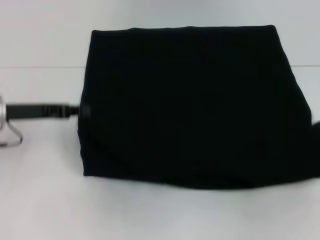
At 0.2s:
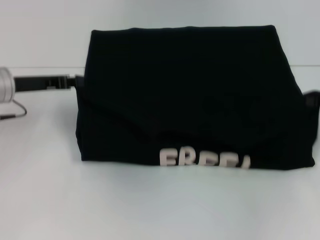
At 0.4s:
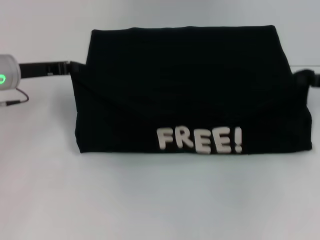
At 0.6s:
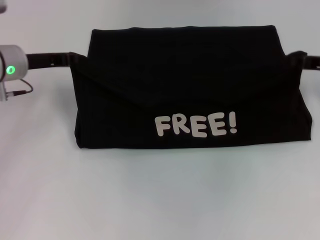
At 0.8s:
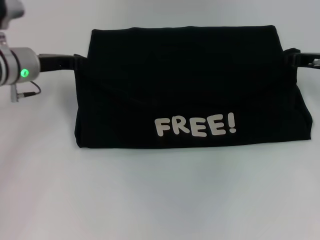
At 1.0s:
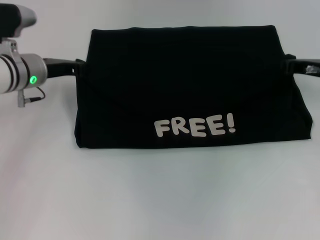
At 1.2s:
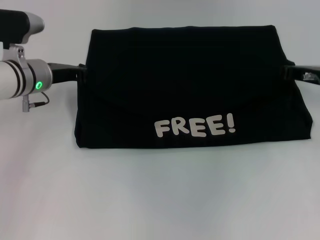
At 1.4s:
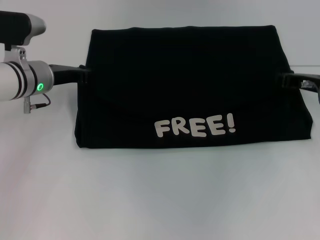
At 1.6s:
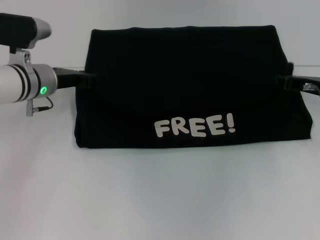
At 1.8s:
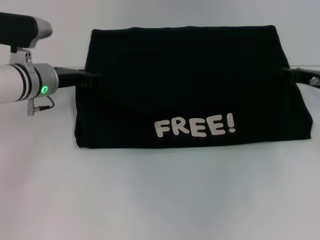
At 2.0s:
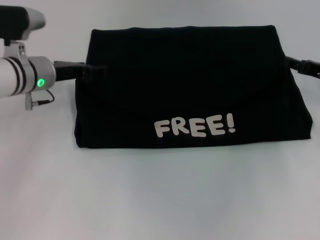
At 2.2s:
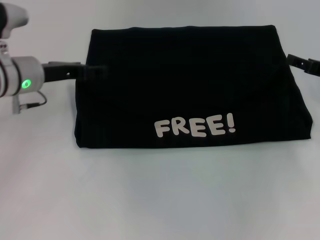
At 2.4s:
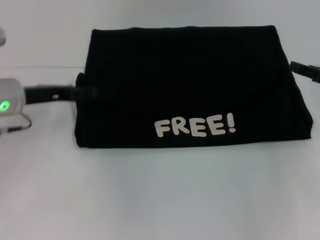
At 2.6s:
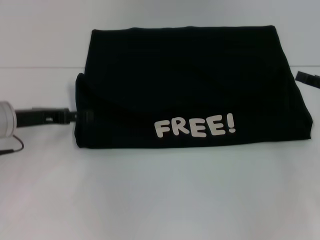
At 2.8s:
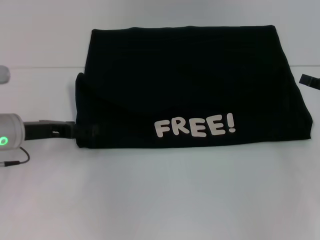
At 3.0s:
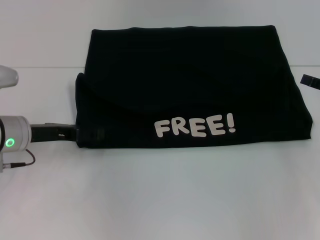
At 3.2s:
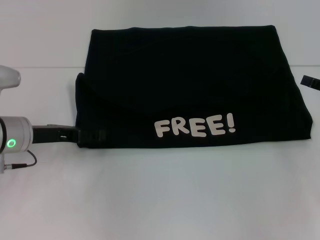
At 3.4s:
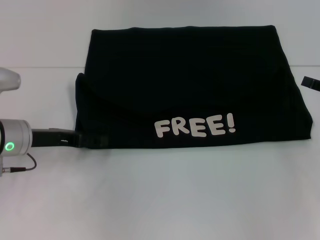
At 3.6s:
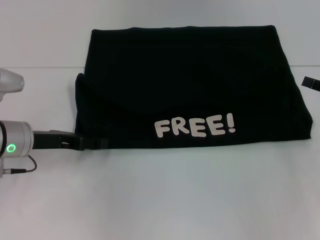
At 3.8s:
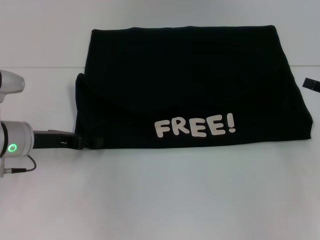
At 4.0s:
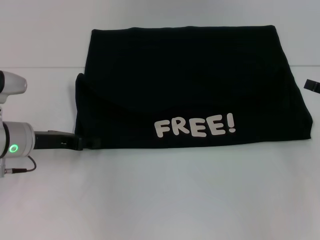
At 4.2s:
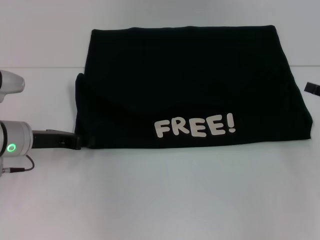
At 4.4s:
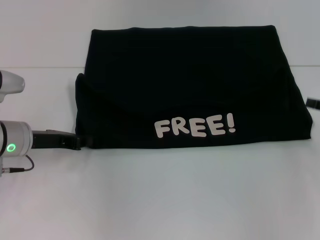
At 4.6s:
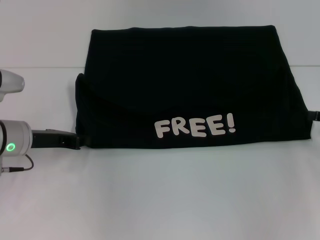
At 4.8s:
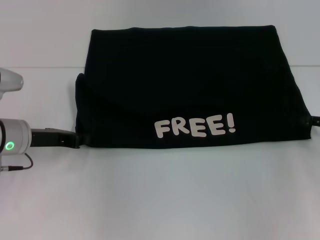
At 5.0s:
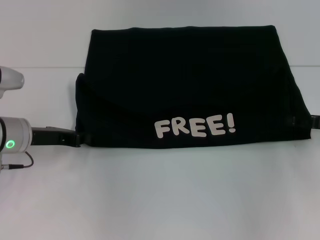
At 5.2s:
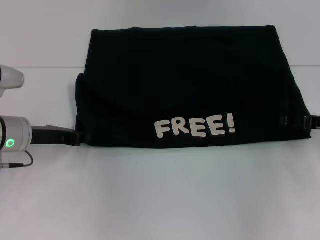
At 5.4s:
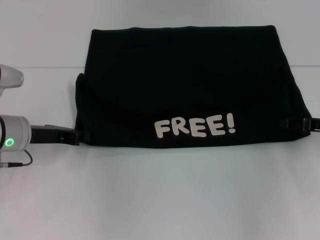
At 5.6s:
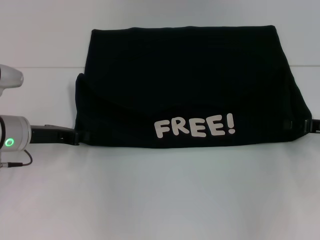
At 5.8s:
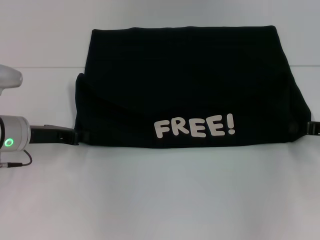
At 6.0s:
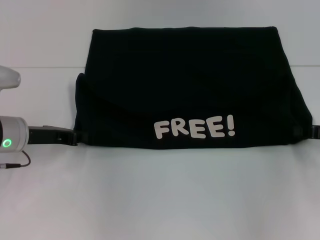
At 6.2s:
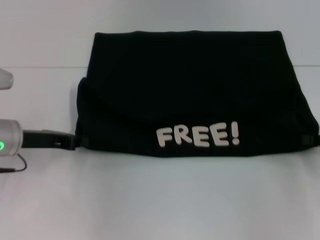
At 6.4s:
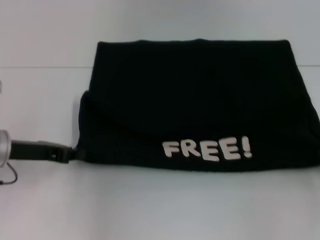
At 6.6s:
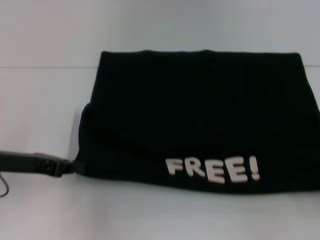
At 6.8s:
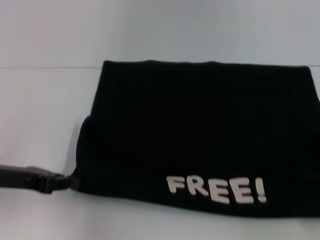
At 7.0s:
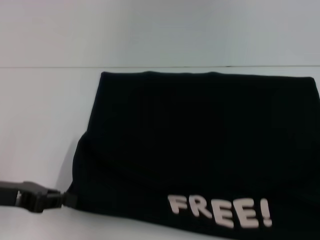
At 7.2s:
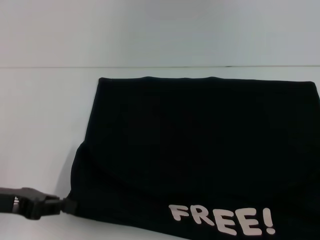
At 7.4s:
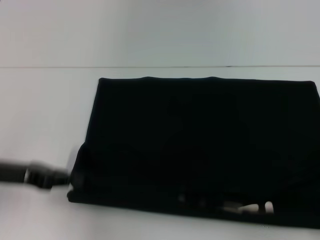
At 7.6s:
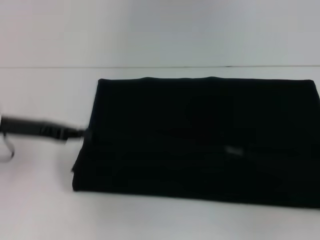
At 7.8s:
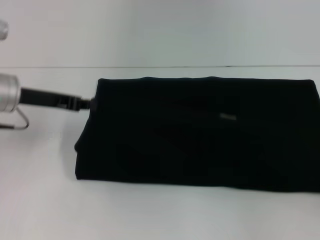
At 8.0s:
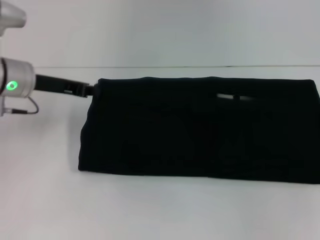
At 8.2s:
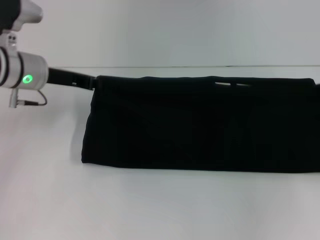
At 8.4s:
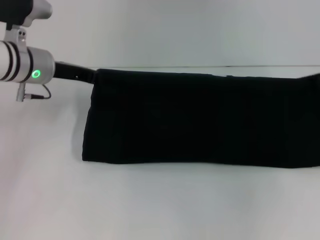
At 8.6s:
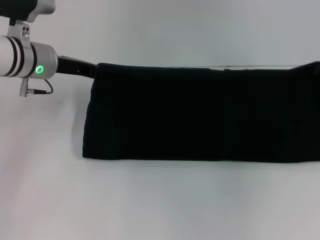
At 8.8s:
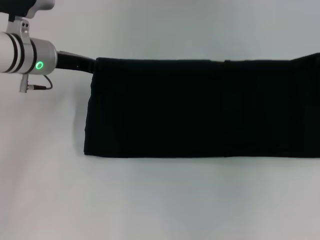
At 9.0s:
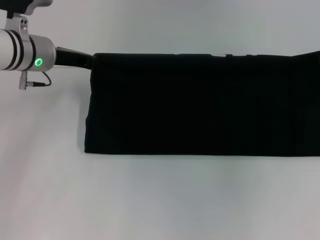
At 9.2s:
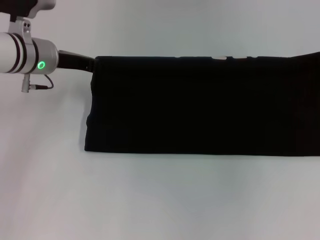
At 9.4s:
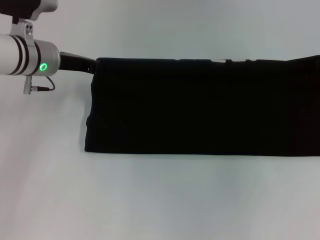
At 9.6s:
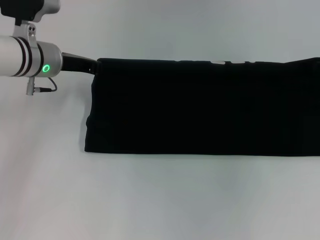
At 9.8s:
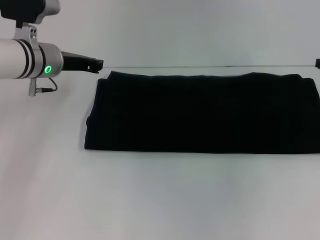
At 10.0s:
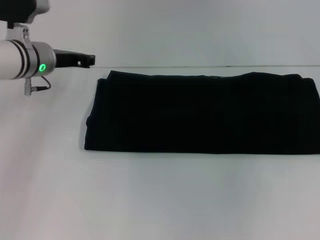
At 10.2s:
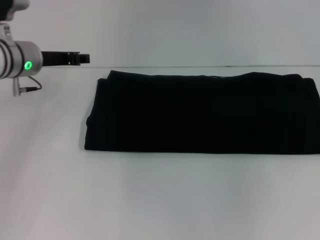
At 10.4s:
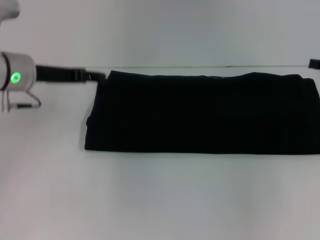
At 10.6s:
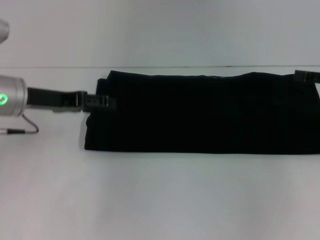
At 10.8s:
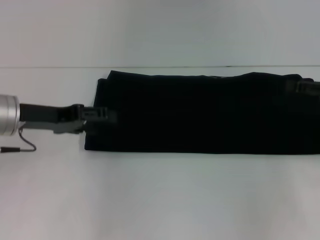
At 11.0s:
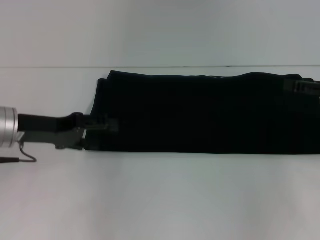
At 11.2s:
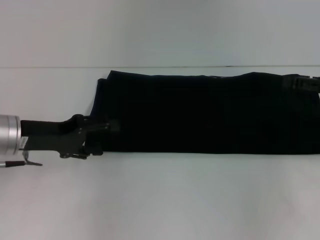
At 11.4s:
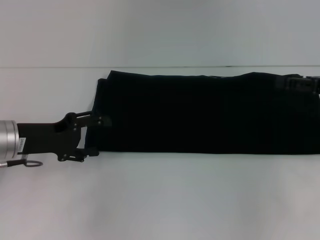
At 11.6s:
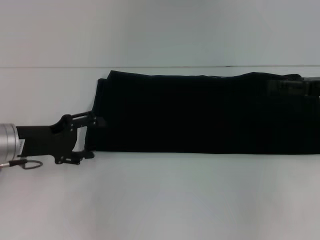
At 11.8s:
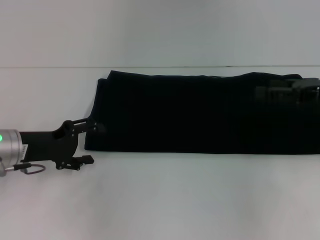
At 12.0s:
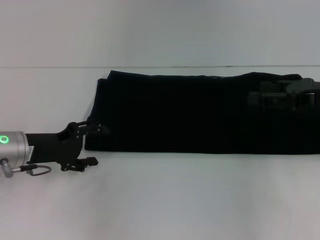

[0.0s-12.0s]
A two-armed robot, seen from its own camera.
Step, 1.8s to 7.0s: Pull the clothes with your left hand.
Step, 1.8s to 7.0s: Pull the clothes with your right hand.
Step, 7.2s to 10.4s: Fold the clothes with your right hand.
0.0s to 1.6s: The right gripper goes some 15 cm to the left and forward, while the left gripper moves forward and to the right, roughly 10 cm.
1.6s to 3.0s: The right gripper goes about 10 cm to the right and backward, and opens up. Meanwhile the left gripper heads backward, covering approximately 10 cm, and opens.
3.0s to 4.4s: The left gripper closes its fingers.
4.4s to 6.0s: The right gripper closes.
6.0s to 7.6s: The right gripper heads backward and to the right, covering about 15 cm, while the left gripper travels upward by approximately 5 cm, and reaches roughly 10 cm backward, then returns.
7.6s to 9.0s: The left gripper shifts some 15 cm forward and to the right; the right gripper moves forward, roughly 20 cm.
9.0s to 10.4s: The right gripper opens its fingers. The left gripper opens.
10.4s to 12.0s: The left gripper moves downward and backward, approximately 10 cm. Meanwhile the right gripper travels to the left by roughly 5 cm.

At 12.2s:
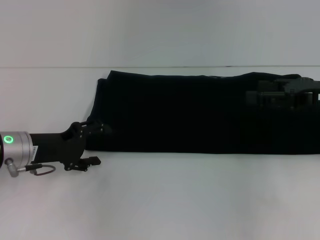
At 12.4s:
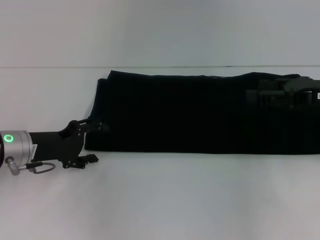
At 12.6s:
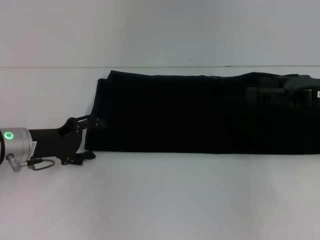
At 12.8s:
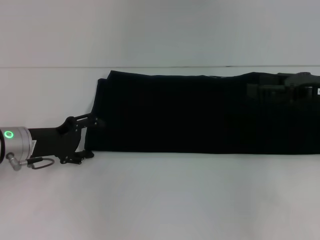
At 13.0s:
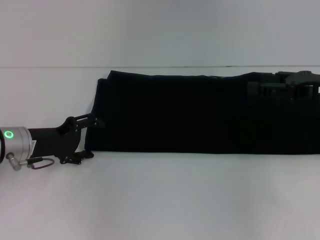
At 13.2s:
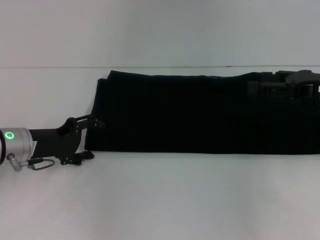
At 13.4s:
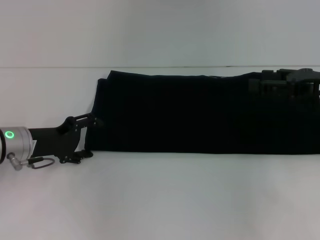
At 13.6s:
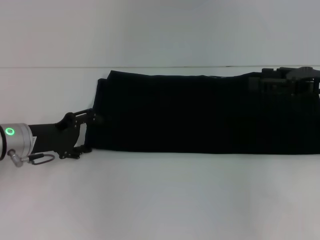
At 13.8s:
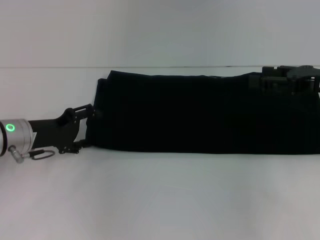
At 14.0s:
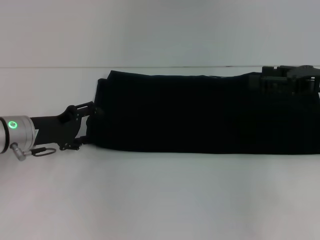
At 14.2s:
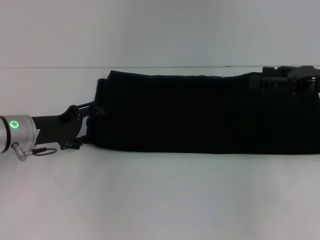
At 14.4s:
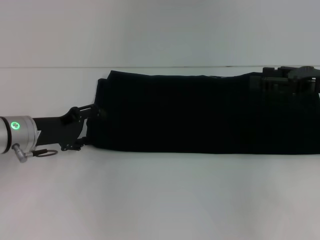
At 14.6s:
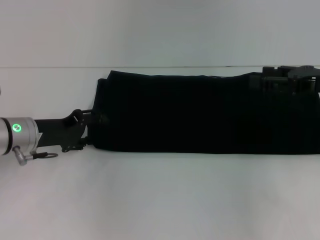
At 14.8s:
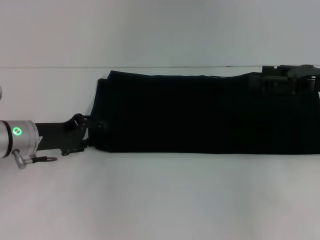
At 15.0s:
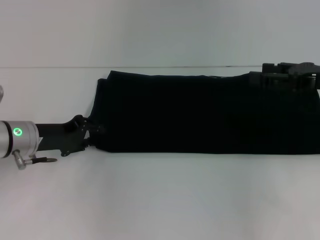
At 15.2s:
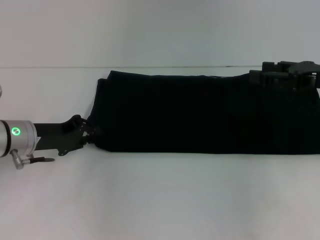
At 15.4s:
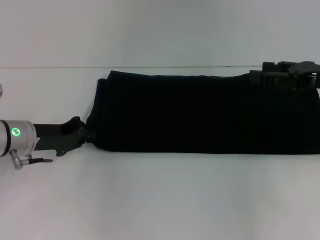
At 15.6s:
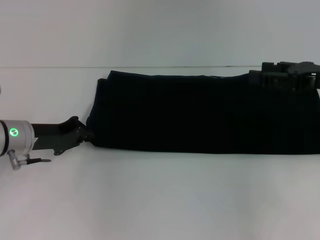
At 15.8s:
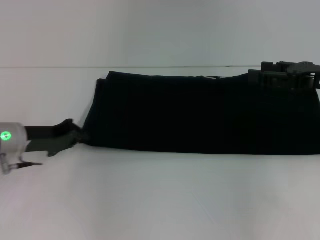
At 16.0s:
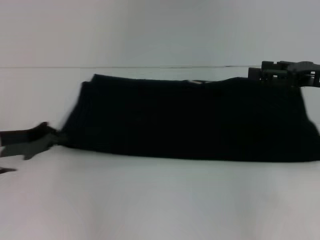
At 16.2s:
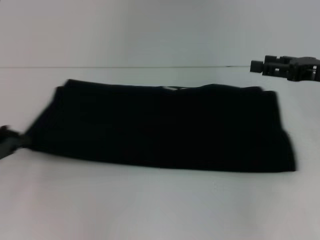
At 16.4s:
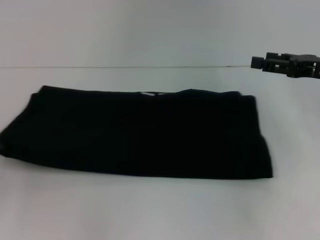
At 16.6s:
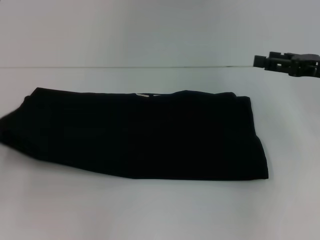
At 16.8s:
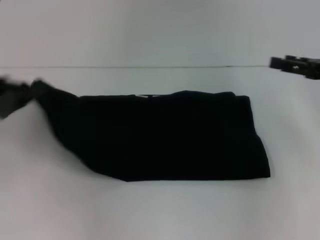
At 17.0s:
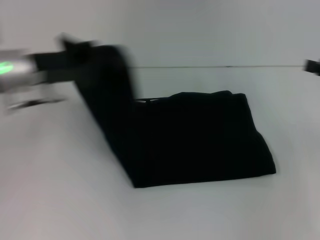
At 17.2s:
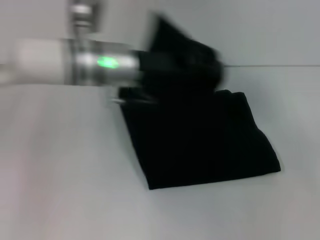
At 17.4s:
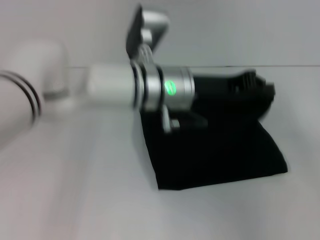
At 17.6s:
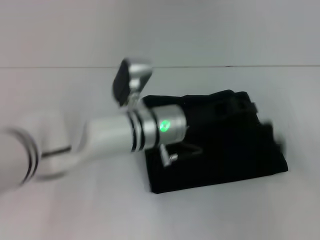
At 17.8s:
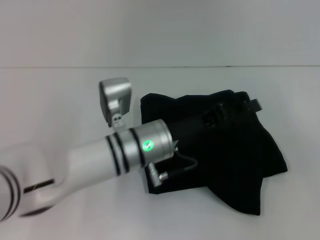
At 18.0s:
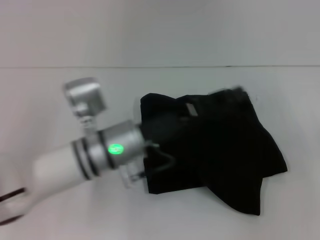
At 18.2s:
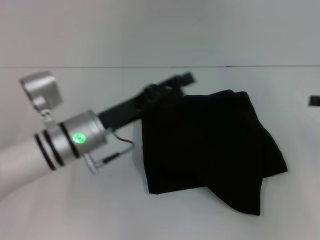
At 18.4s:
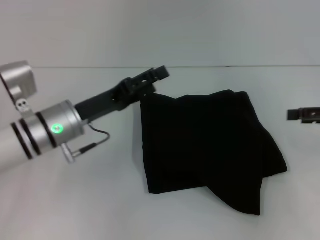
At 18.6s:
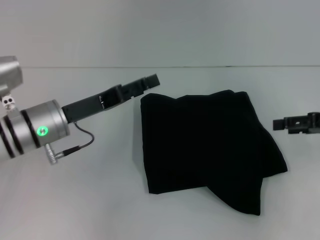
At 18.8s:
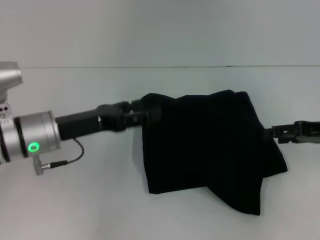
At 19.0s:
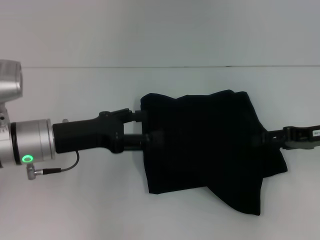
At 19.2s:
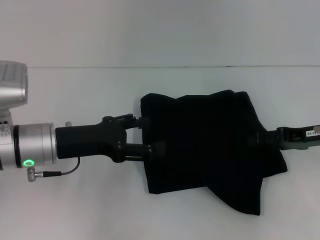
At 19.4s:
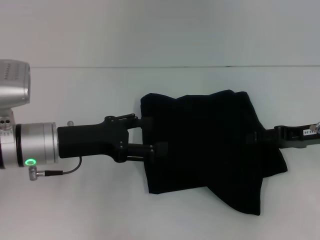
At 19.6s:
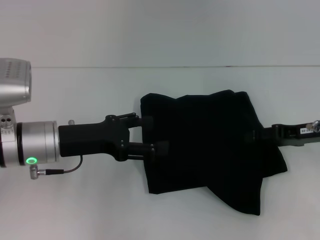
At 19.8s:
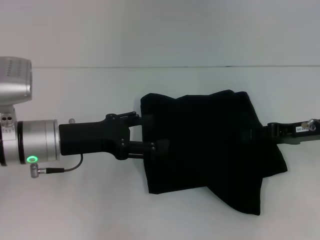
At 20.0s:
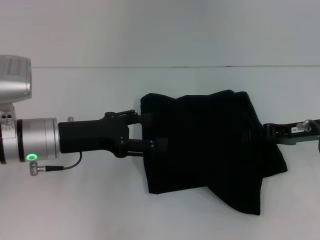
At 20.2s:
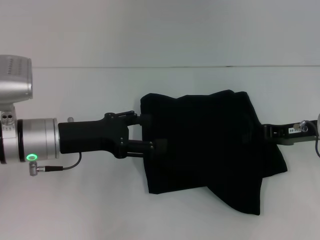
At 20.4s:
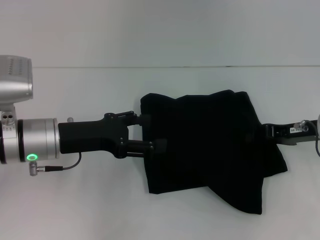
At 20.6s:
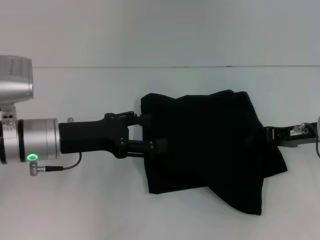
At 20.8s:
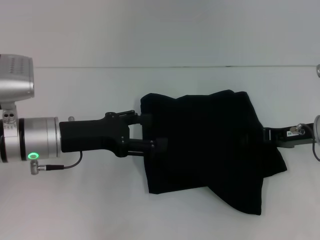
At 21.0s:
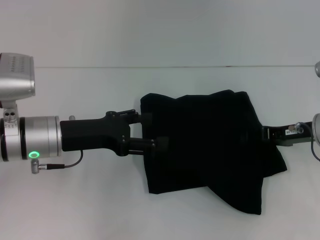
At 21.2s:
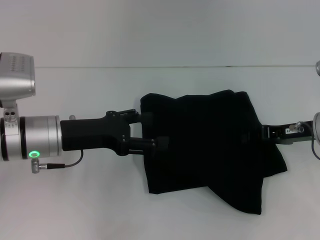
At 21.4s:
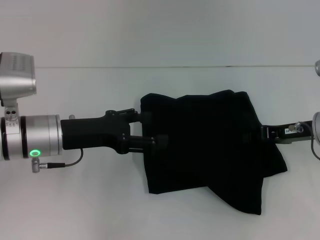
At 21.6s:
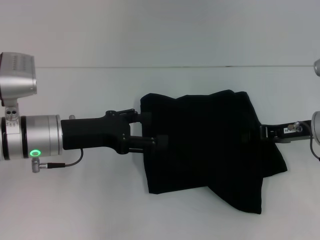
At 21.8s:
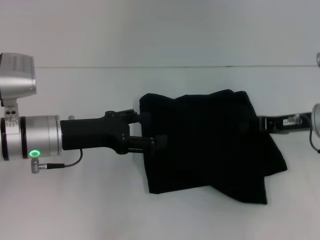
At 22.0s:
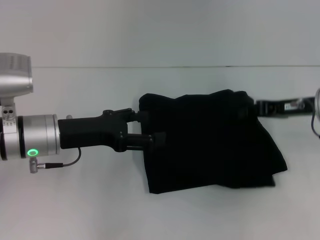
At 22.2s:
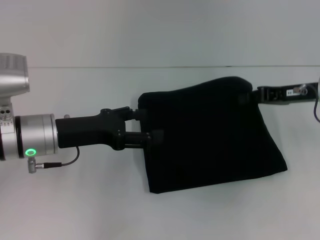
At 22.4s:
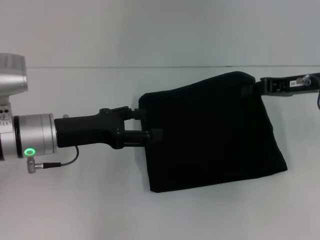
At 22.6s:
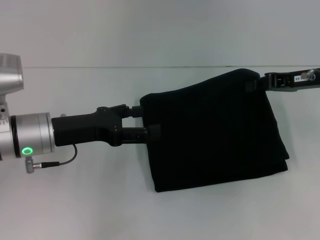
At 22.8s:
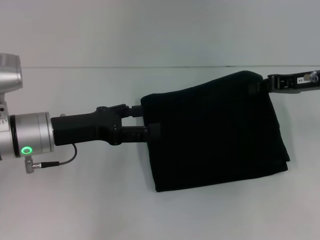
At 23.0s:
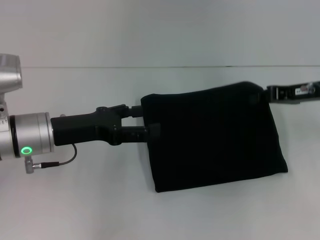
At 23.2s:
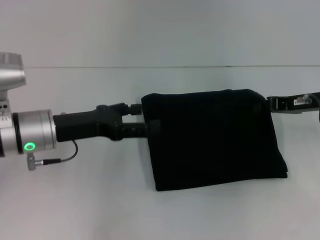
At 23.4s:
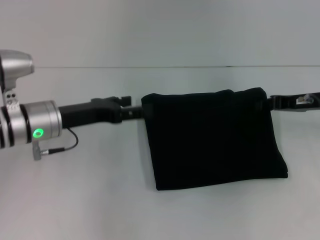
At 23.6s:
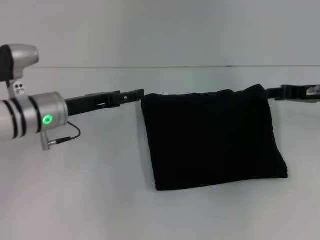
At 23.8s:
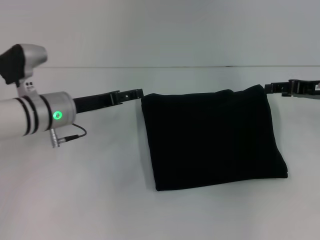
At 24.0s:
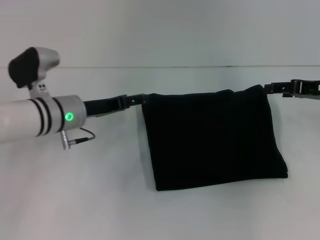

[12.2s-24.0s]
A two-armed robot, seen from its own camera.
Step, 12.2s to 17.8s: Fold the clothes with your left hand.
12.2s to 13.6s: The grippers make only small movements.
13.6s to 15.2s: The left gripper closes up.
15.2s to 16.6s: The left gripper moves to the left and backward, about 15 cm.
16.6s to 18.2s: The right gripper heads to the right, covering about 5 cm, while the left gripper travels to the right by approximately 25 cm, and opens.
18.2s to 19.6s: The left gripper shifts some 5 cm to the left, and opens up. Meanwhile the right gripper travels to the left and downward by some 10 cm.
19.6s to 21.0s: There are only small adjustments of the grippers.
21.0s to 22.6s: The right gripper goes some 5 cm upward, and closes up.
22.6s to 24.0s: The left gripper heads forward, covering approximately 5 cm, while the right gripper opens.
